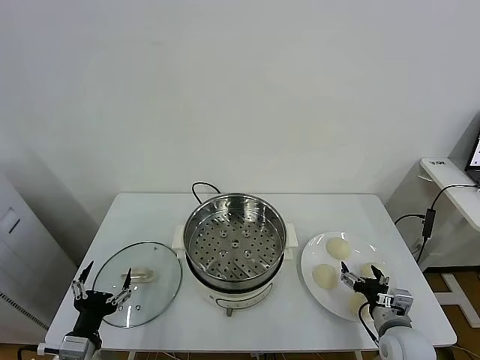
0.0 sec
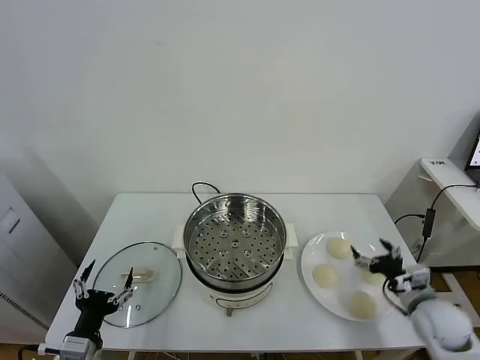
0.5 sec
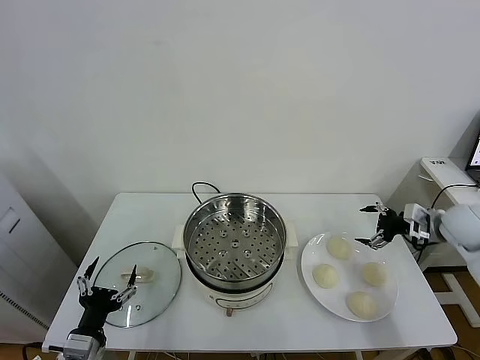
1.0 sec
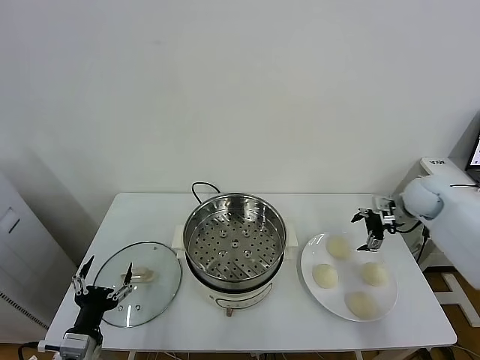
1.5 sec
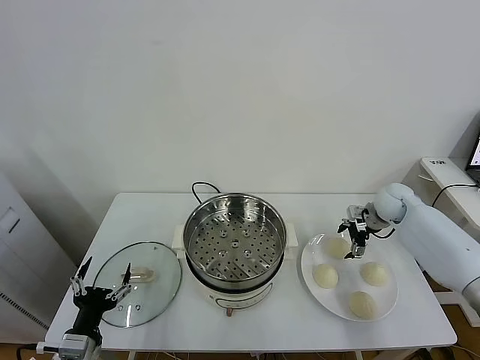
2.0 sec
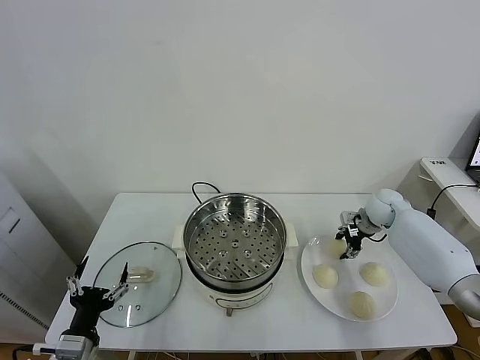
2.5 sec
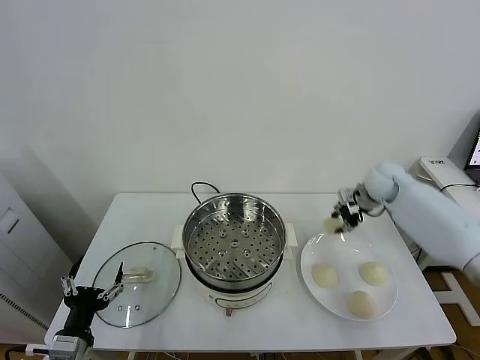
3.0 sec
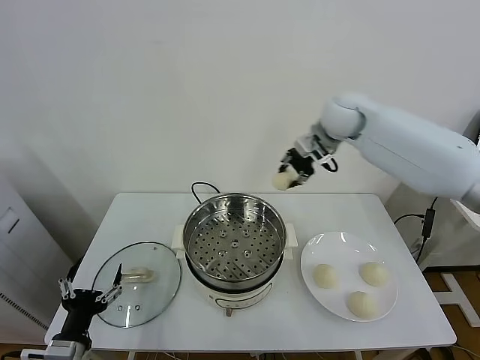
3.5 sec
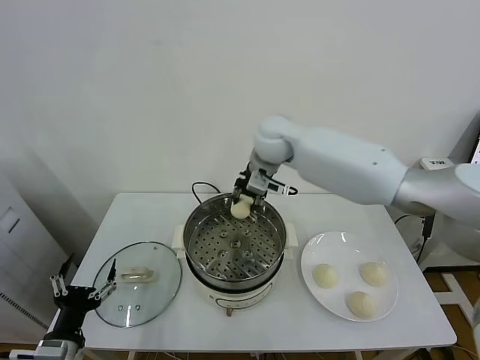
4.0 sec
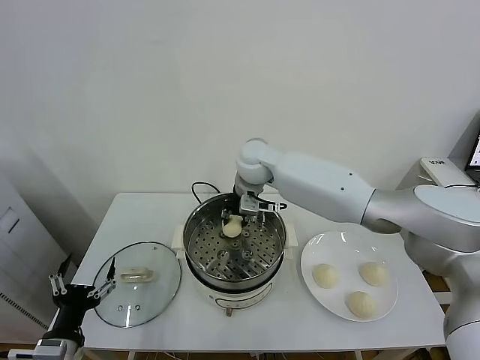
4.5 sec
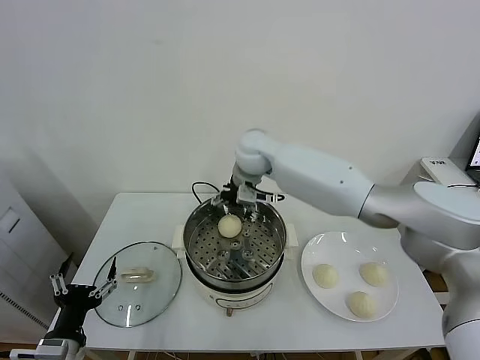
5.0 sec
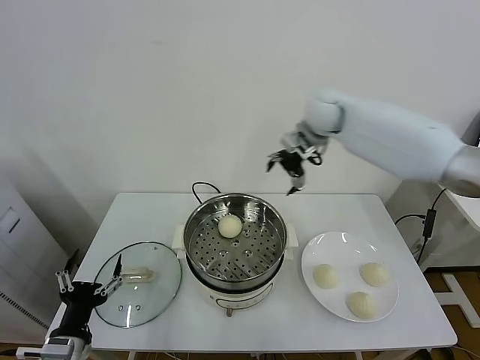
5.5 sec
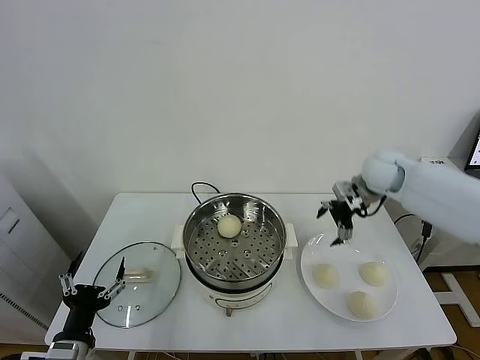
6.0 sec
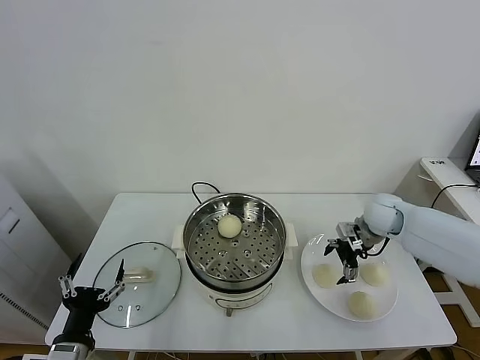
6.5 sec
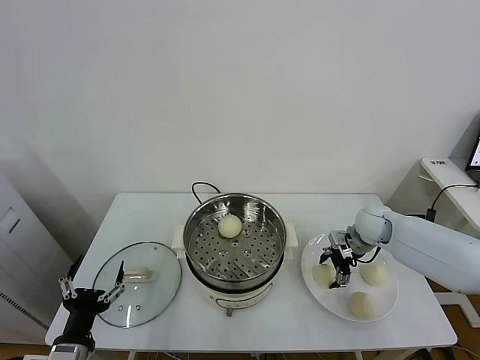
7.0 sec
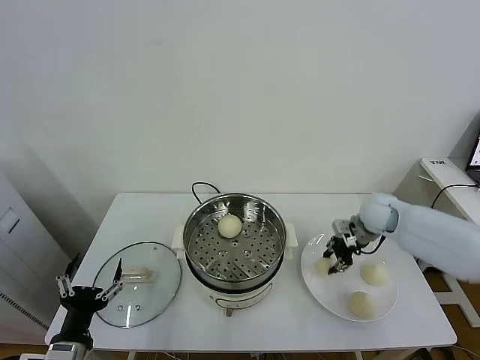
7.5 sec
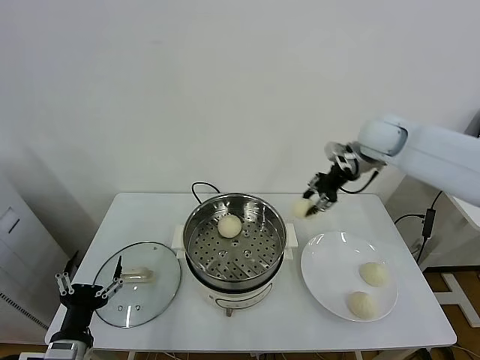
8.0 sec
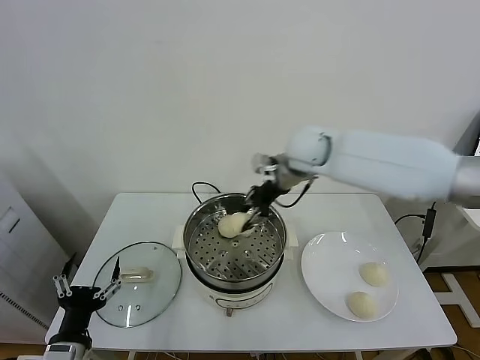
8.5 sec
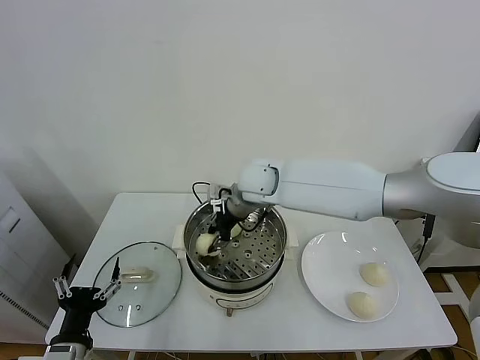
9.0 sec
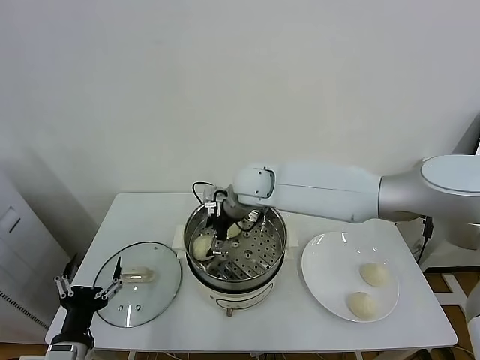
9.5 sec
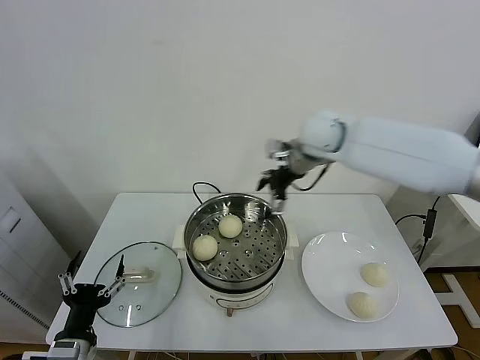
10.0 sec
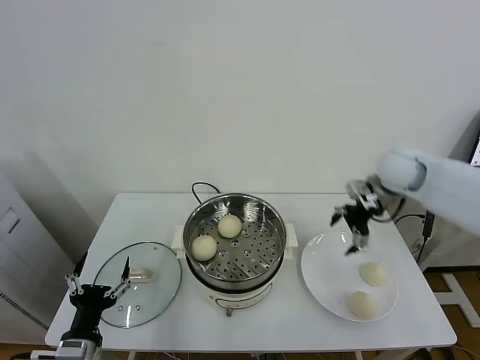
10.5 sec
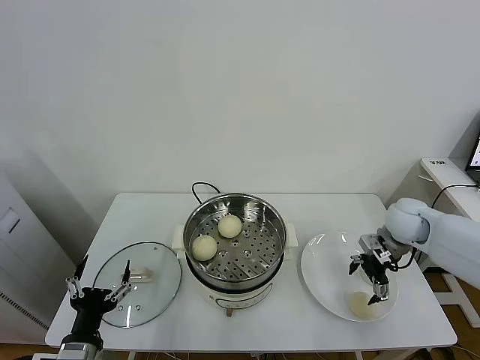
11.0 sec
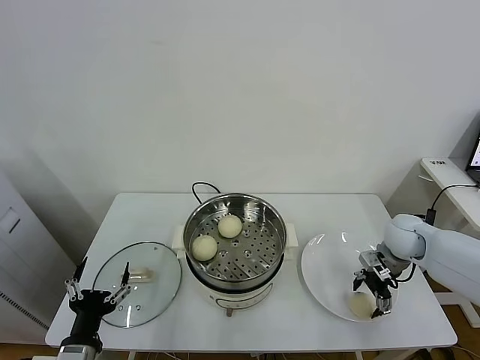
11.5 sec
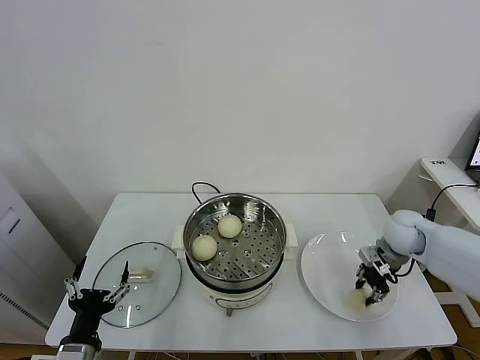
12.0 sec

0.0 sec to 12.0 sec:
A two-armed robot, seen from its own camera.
Task of the whole recording: take steamed baozi put them in steamer.
Step, 0.0 sec to 2.0 sec: Grasp the baozi in the plate with right gripper.
Step, 2.5 sec to 4.5 sec: Place the baozi on the steamer with right gripper.
Step, 5.0 sec to 7.0 sec: Grasp the baozi in the plate with right gripper.
Step, 7.5 sec to 9.5 sec: Place the baozi on the steamer with right gripper.
Step, 10.0 sec to 11.5 sec: Grasp the baozi in the plate with right gripper.
2.0 sec to 4.0 sec: The right gripper goes roughly 40 cm to the left and upward, and closes up.
4.0 sec to 6.0 sec: The right gripper moves to the right, some 30 cm, and opens up.
6.0 sec to 8.0 sec: The right gripper travels upward and to the left by some 15 cm, and closes its fingers.
8.0 sec to 10.0 sec: The right gripper goes to the left and returns, about 25 cm each way, and opens up.
10.0 sec to 12.0 sec: The right gripper shifts about 30 cm downward, to the right and backward, and closes its fingers.

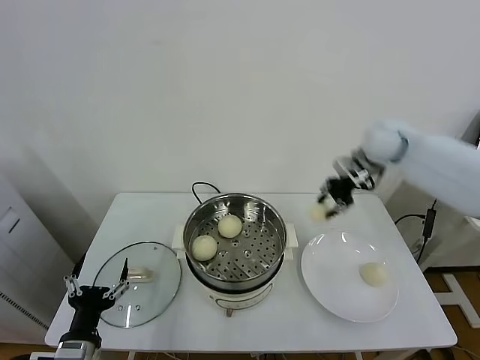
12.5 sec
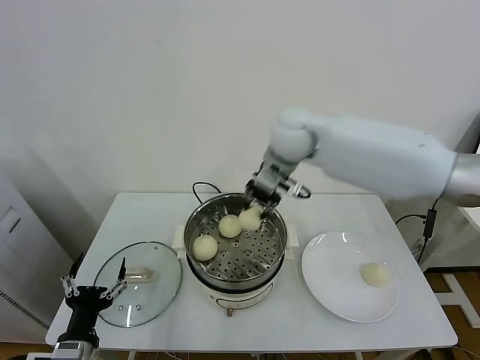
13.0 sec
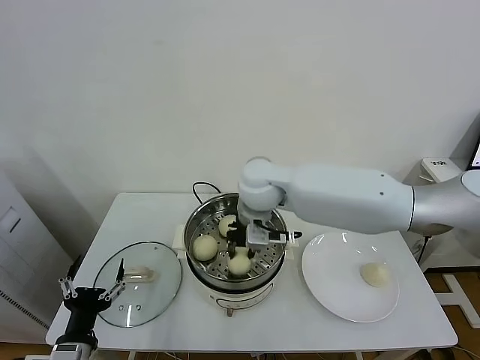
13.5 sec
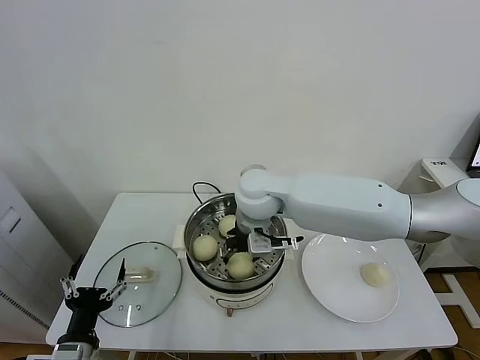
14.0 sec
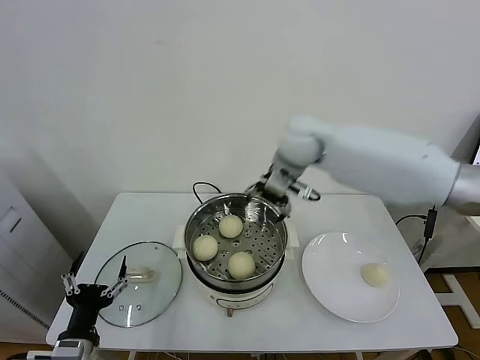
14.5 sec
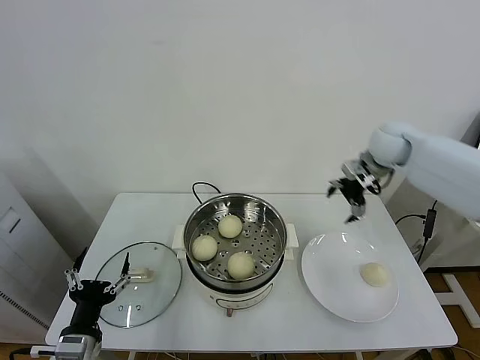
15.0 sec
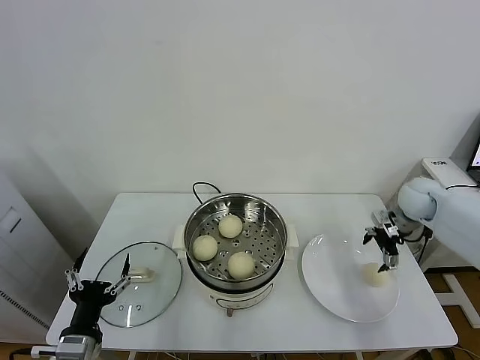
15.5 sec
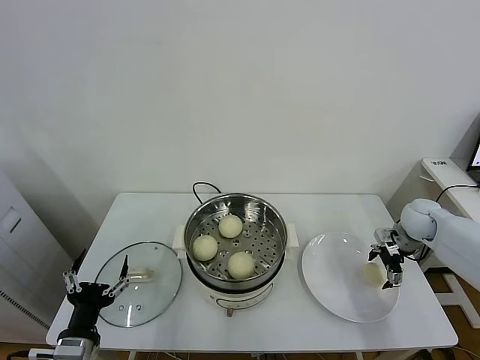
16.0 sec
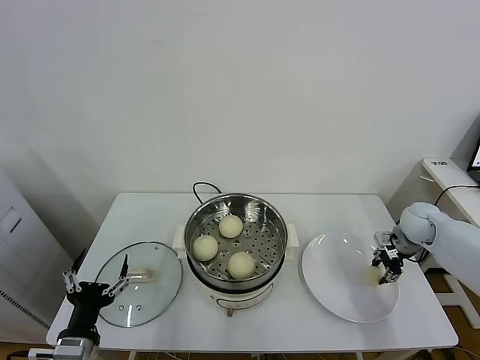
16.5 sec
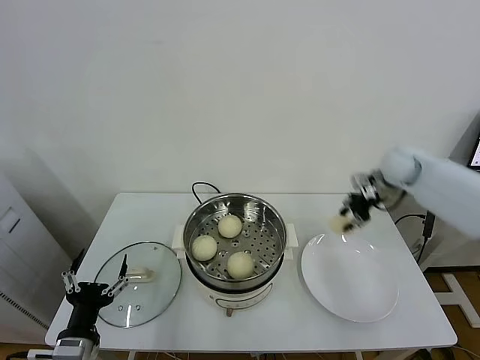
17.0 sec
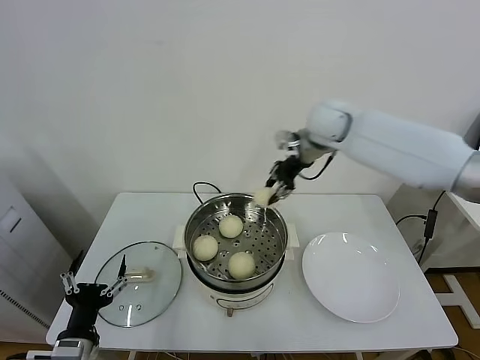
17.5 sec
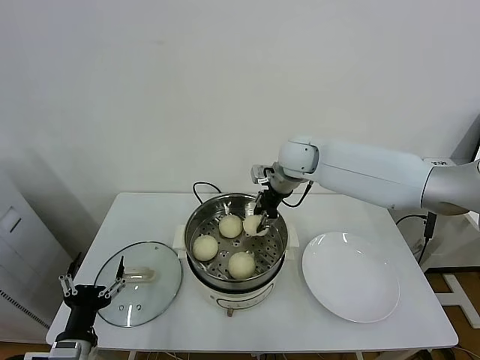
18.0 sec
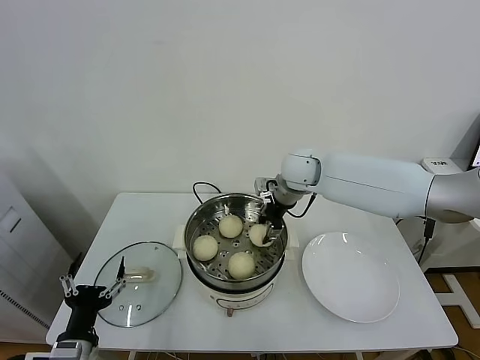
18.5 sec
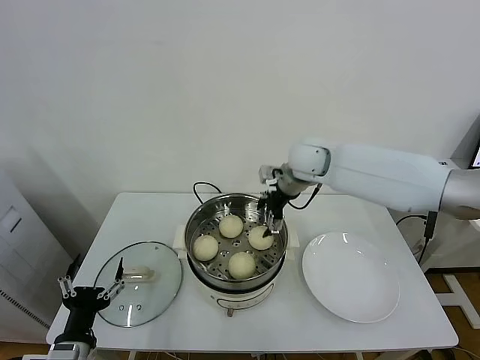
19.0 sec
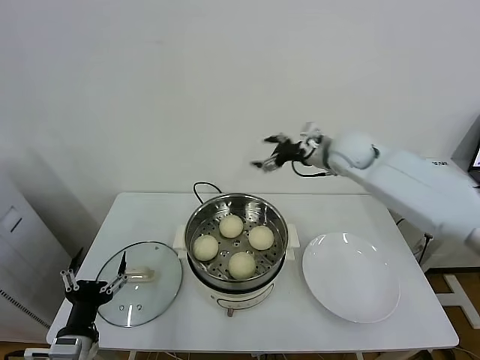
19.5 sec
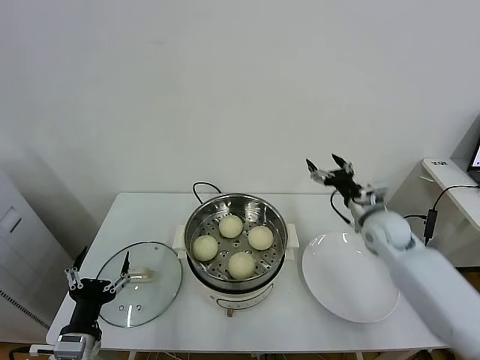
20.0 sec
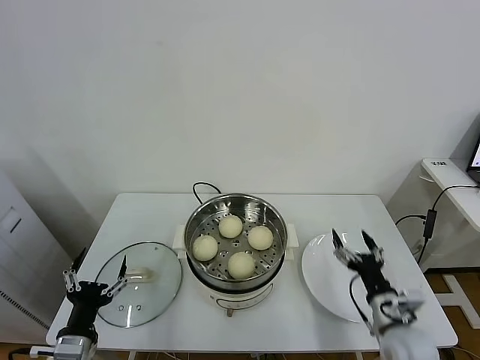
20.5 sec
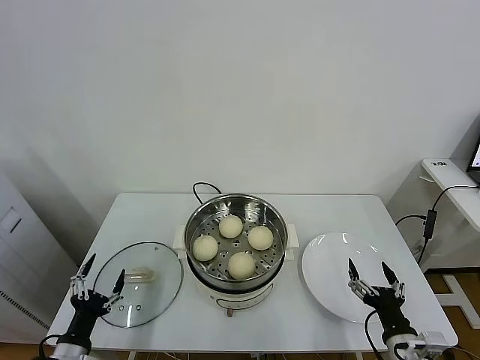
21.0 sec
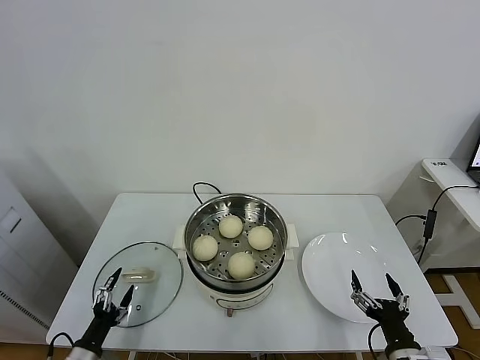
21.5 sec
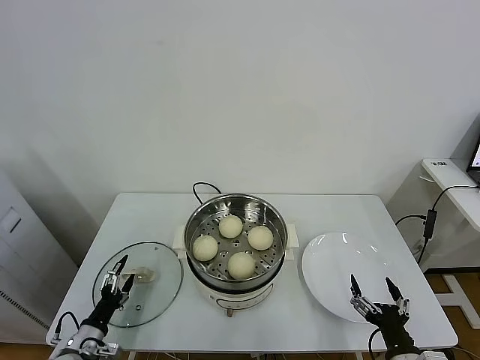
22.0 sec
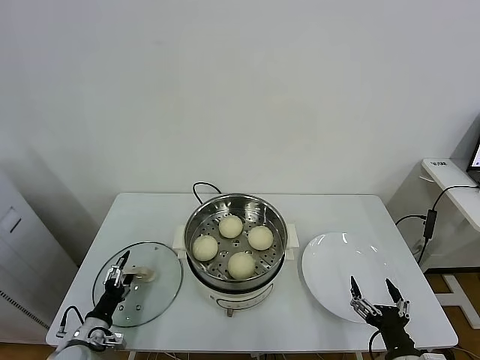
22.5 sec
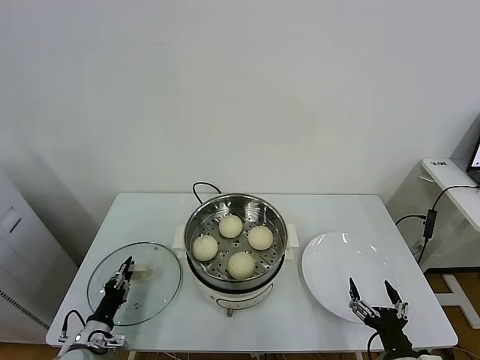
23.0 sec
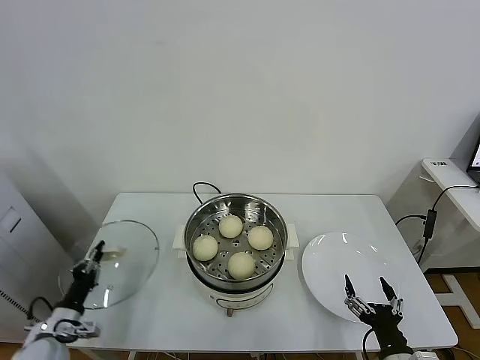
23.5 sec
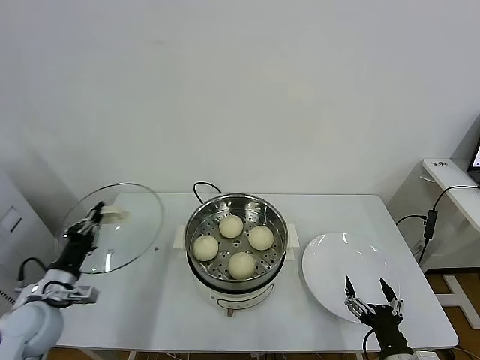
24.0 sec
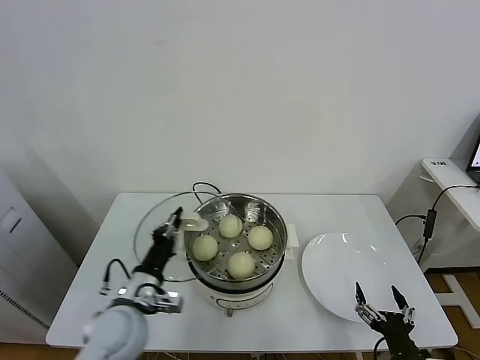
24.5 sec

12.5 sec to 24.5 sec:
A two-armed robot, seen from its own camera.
Task of the whole recording: take steamed baozi put them in steamer.
Step, 12.5 sec to 14.0 sec: Place the baozi on the steamer with right gripper.
Step, 14.5 sec to 16.0 sec: Grasp the baozi in the plate with right gripper.
Step, 16.5 sec to 18.5 sec: Place the baozi on the steamer with right gripper.
Step, 19.0 sec to 23.0 sec: Grasp the pot lid with left gripper.
12.5 sec to 14.5 sec: The right gripper is displaced to the left by roughly 15 cm, and opens its fingers.
14.5 sec to 16.5 sec: The right gripper moves to the right and downward, some 40 cm, and closes its fingers.
16.5 sec to 18.5 sec: The right gripper goes some 35 cm to the left and upward.
18.5 sec to 20.5 sec: The right gripper is displaced backward, downward and to the right by about 40 cm, and opens its fingers.
20.5 sec to 22.5 sec: The left gripper heads downward, forward and to the left, covering some 20 cm; the right gripper travels backward by about 10 cm.
22.5 sec to 24.5 sec: The left gripper moves upward and to the right, roughly 25 cm, and closes its fingers.

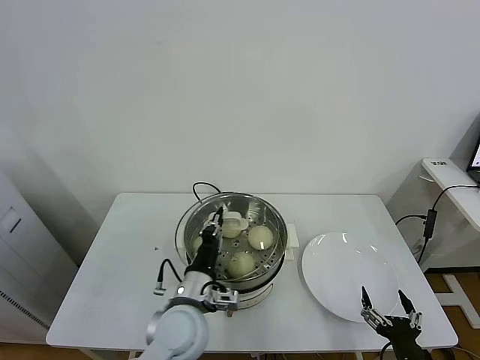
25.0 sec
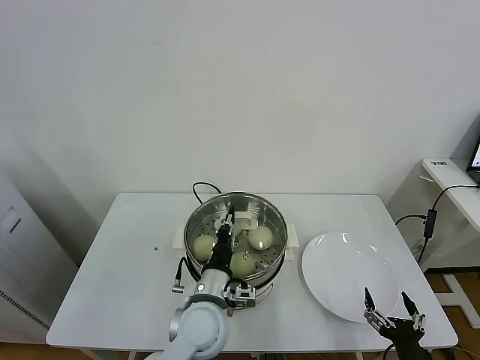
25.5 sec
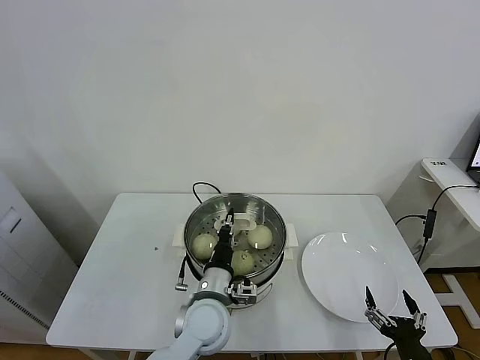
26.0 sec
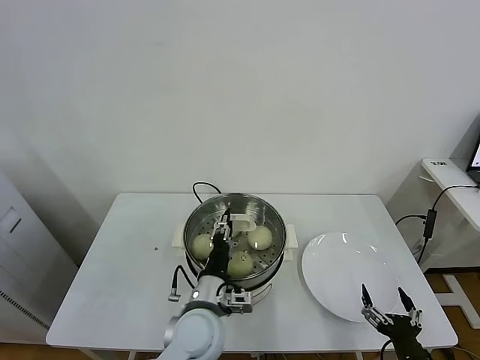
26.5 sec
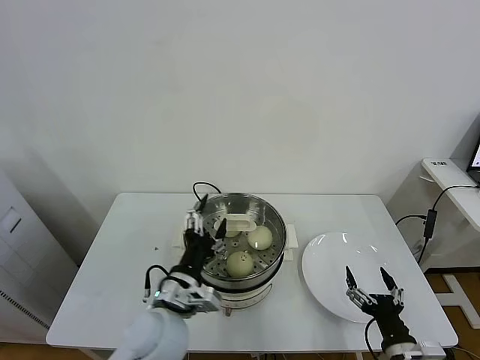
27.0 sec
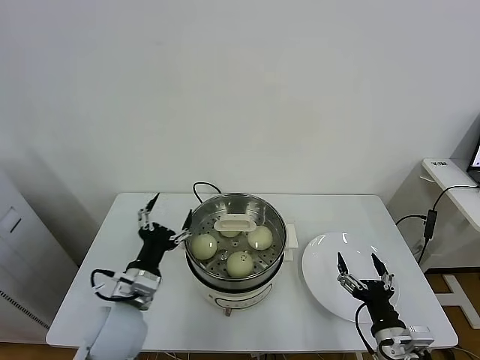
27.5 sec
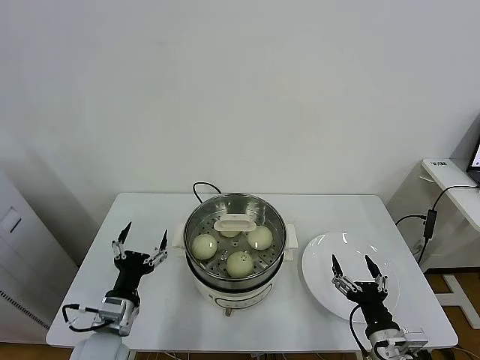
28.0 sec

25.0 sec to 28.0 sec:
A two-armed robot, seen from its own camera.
Task of the whole recording: take steamed baozi put them in steamer.
25.0 sec to 26.5 sec: The grippers make only small movements.
26.5 sec to 28.0 sec: The right gripper moves forward, roughly 5 cm, while the left gripper is displaced to the left by approximately 20 cm, and opens.
